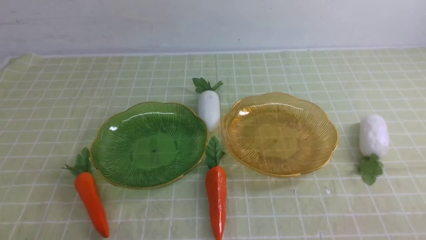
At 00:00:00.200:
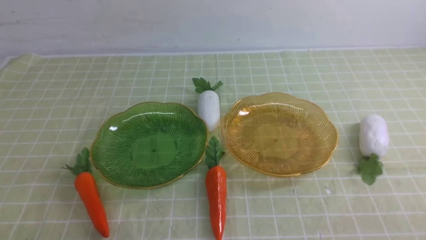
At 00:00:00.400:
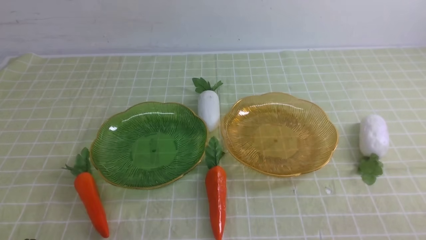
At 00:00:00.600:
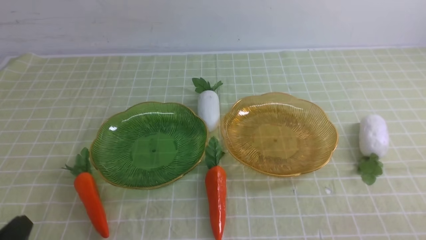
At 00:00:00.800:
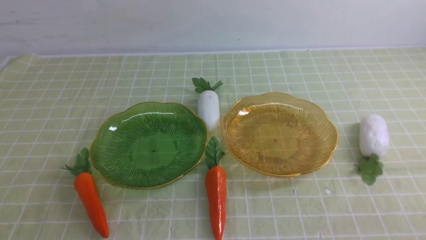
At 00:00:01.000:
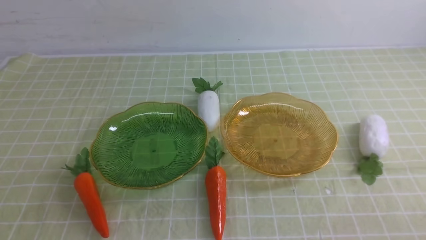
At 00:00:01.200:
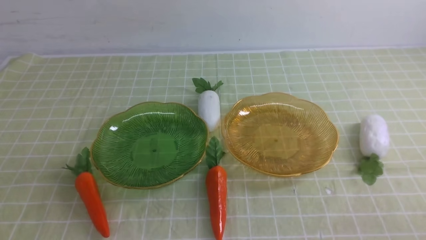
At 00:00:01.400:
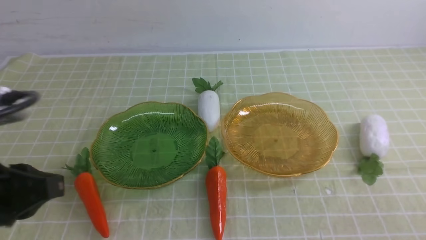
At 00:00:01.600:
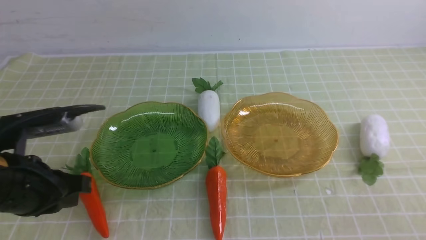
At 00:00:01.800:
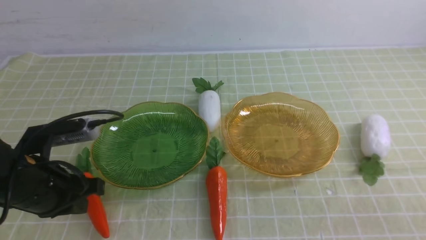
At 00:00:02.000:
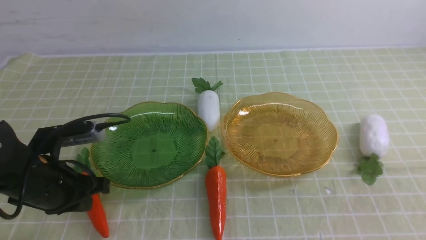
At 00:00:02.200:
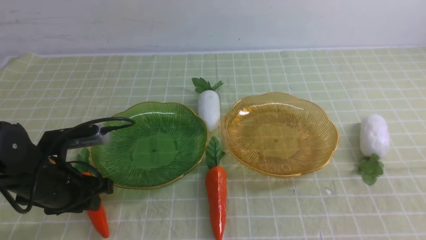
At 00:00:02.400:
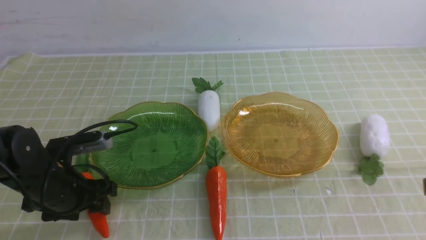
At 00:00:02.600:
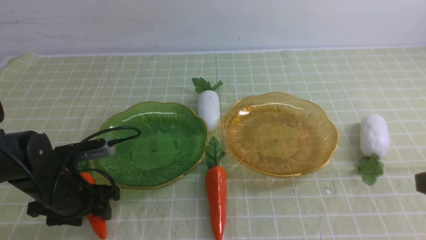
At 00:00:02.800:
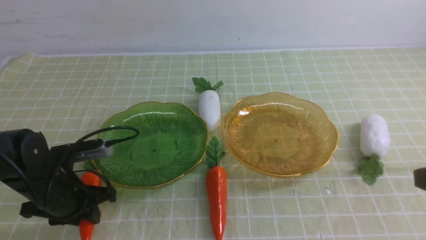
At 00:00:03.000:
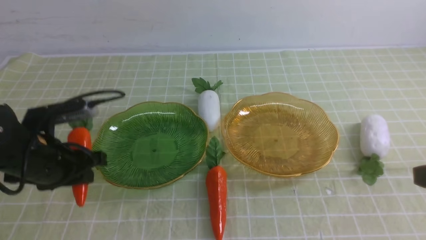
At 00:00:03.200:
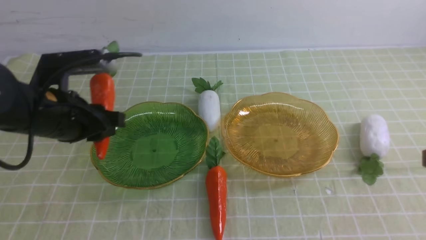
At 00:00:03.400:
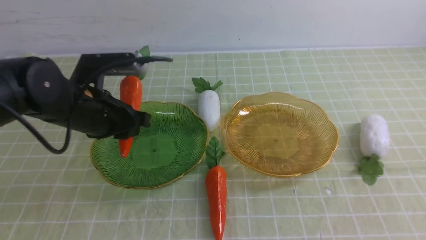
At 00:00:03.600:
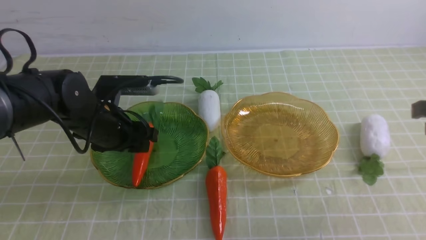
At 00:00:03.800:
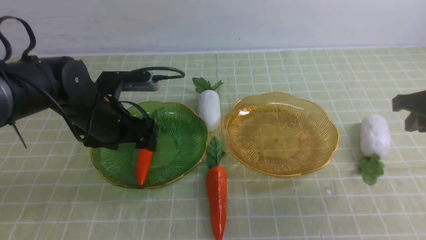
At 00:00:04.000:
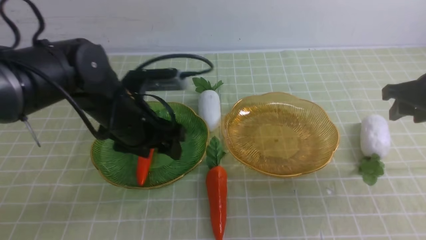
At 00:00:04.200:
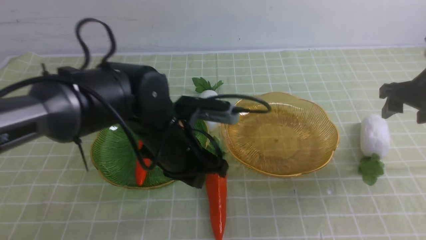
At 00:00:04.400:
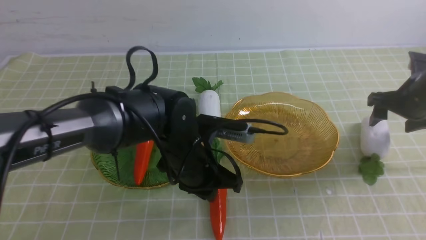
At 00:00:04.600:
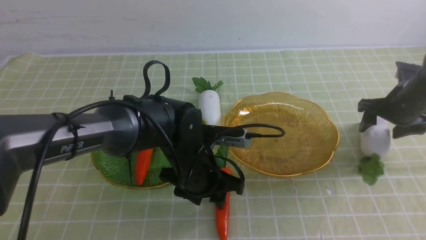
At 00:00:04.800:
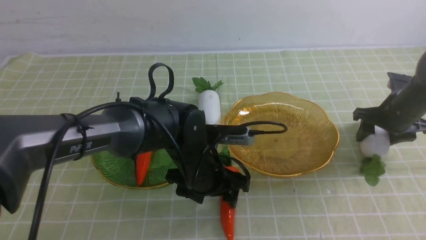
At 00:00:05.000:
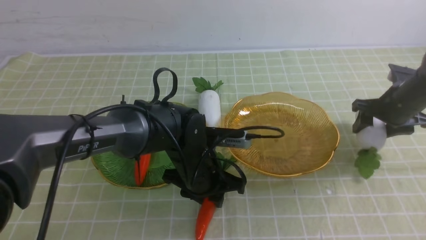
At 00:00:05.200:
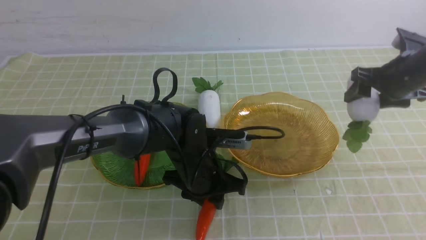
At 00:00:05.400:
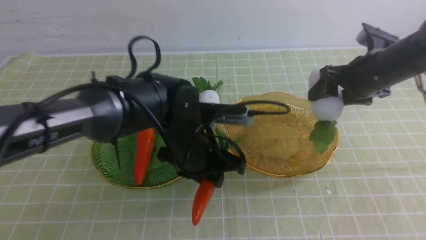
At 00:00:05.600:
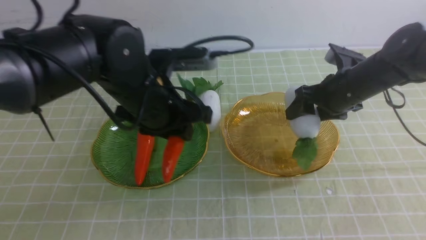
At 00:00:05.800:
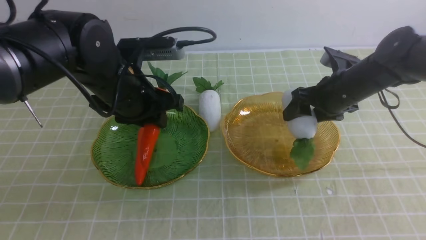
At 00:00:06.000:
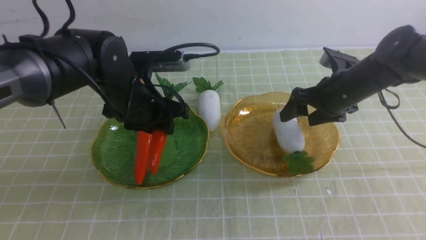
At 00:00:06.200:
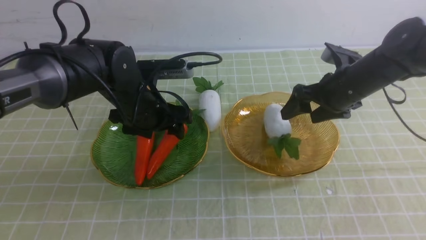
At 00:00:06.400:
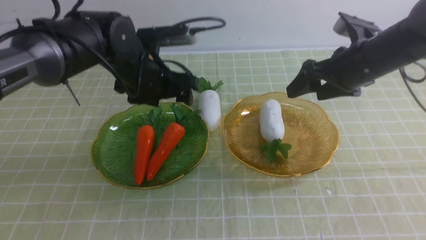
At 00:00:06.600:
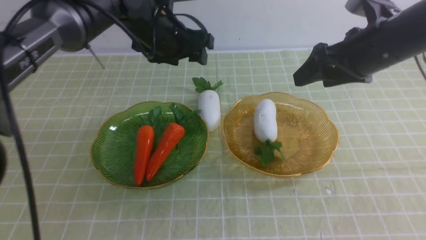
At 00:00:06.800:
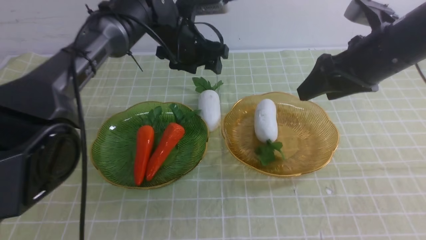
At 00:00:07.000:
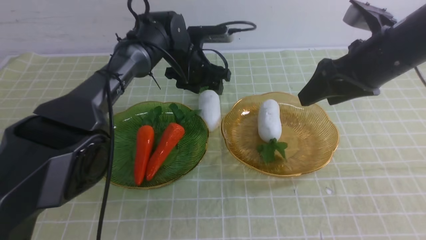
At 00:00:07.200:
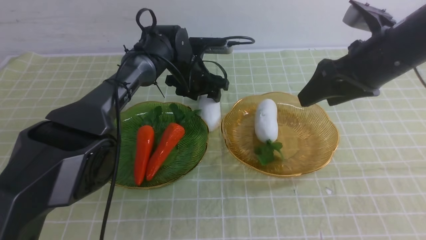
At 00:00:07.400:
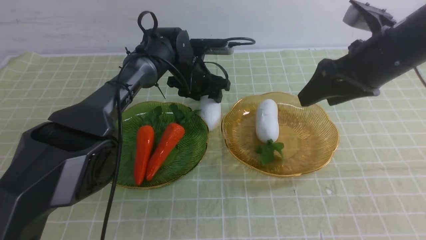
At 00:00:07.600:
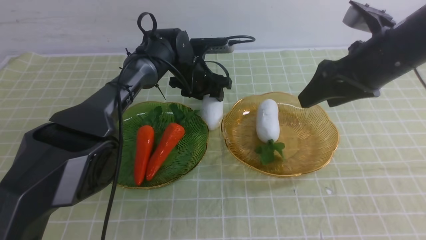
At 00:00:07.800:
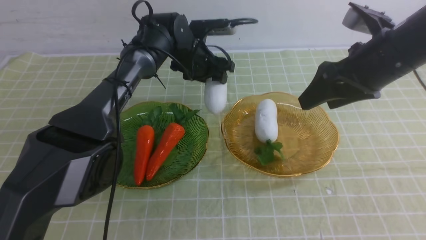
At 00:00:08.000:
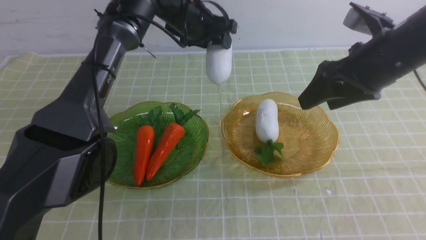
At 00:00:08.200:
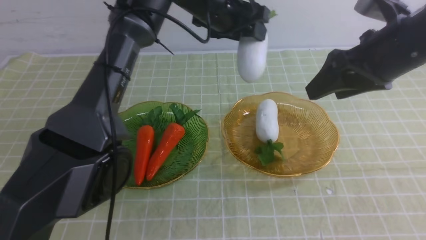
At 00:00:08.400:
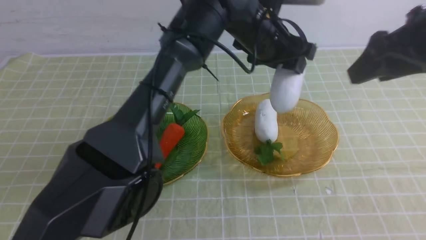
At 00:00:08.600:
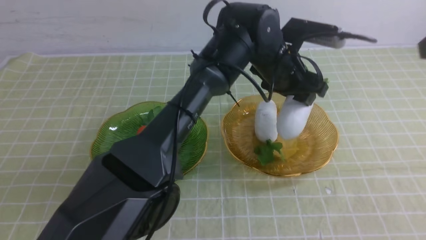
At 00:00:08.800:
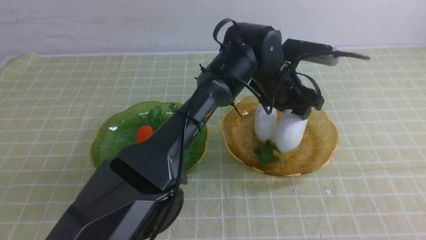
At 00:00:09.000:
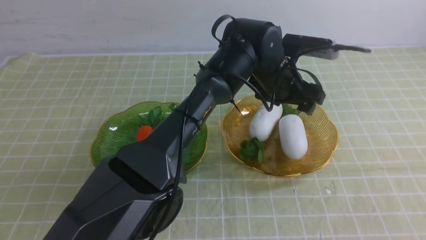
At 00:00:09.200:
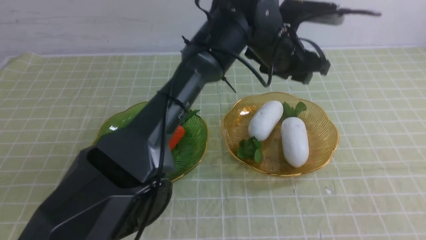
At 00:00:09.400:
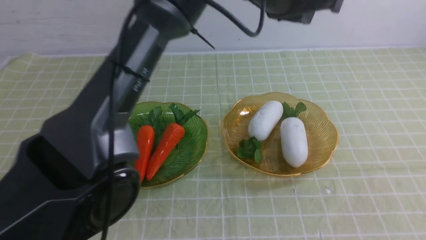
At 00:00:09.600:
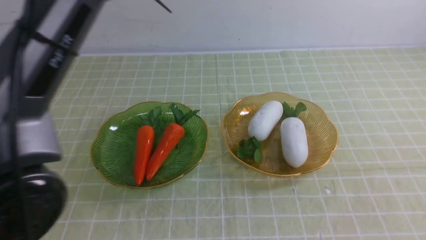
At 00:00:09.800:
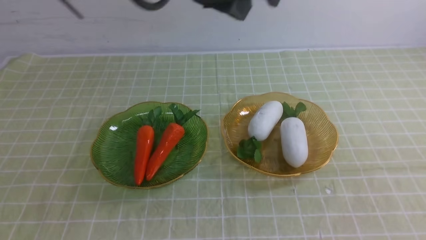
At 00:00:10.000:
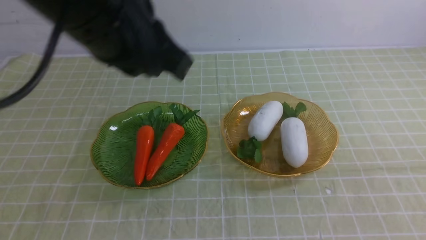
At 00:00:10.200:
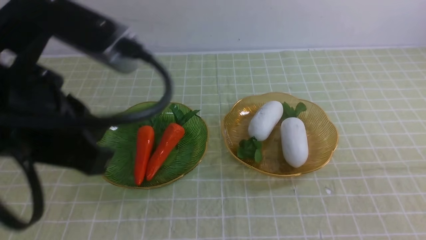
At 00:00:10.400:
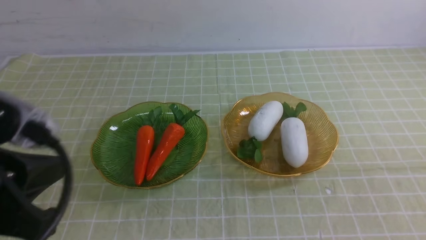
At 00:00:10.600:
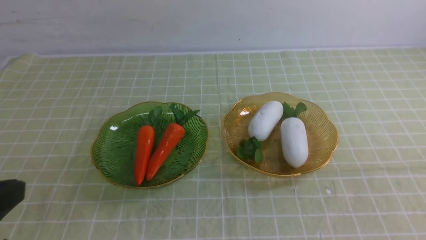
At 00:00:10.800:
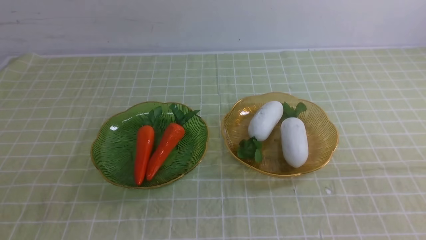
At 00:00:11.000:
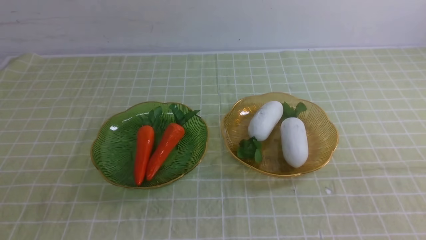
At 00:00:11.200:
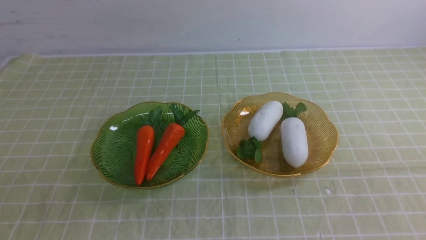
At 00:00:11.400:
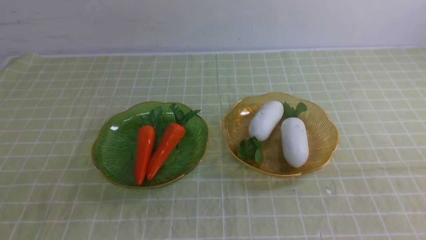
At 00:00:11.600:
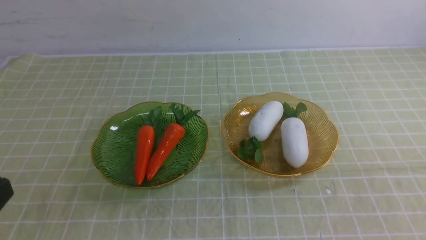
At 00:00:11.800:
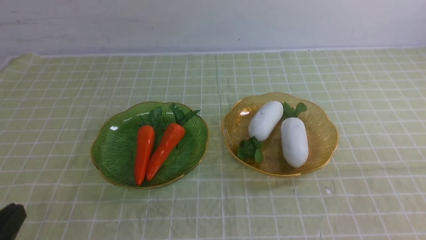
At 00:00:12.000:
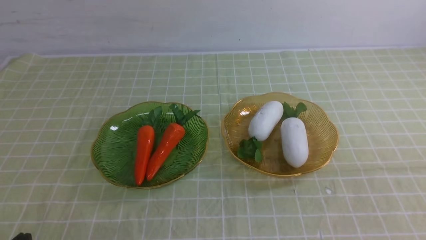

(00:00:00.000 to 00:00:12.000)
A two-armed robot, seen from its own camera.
Step, 00:00:00.000 - 00:00:04.400: use the left arm to grab a carrot and put it into the left plate.
Step, 00:00:04.600 - 00:00:06.400: use the right arm to grab a radish and put it into the right plate.
Step, 00:00:06.600 - 00:00:09.000: use the left arm to grab a radish and put it into the right plate.
00:00:01.600 - 00:00:03.000: The left gripper shifts approximately 10 cm forward and downward, and opens.
00:00:03.000 - 00:00:04.400: The left gripper goes about 15 cm to the right, and opens and closes again. Meanwhile the right gripper moves forward, roughly 25 cm, and opens its fingers.
00:00:04.400 - 00:00:06.000: The right gripper is displaced to the left by roughly 10 cm; the left gripper travels to the left, upward and forward by about 10 cm.
00:00:06.000 - 00:00:07.600: The left gripper moves forward and downward, about 20 cm, while the right gripper shifts roughly 15 cm upward and backward.
00:00:07.600 - 00:00:09.000: The right gripper travels backward, upward and to the right by approximately 20 cm, and closes up, while the left gripper heads to the right, backward and upward, covering roughly 20 cm.
00:00:09.000 - 00:00:10.400: The left gripper travels backward, to the left and upward by about 40 cm, and closes up. The right gripper heads backward and downward, covering some 20 cm.
00:00:10.400 - 00:00:12.000: The left gripper is displaced downward and backward by some 20 cm.
